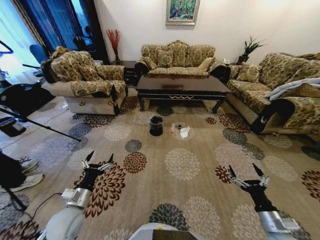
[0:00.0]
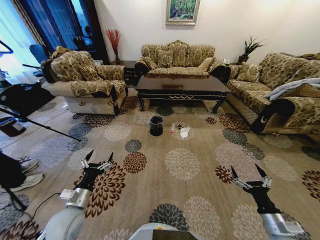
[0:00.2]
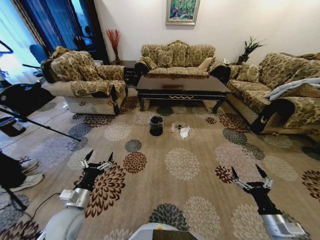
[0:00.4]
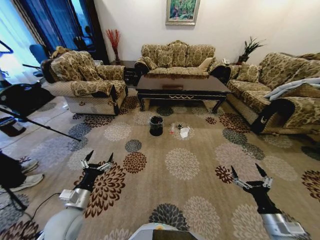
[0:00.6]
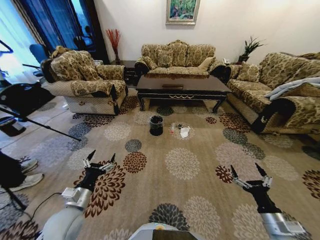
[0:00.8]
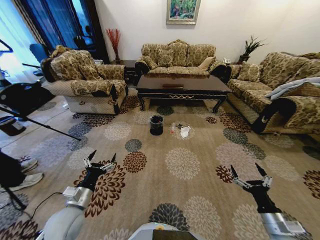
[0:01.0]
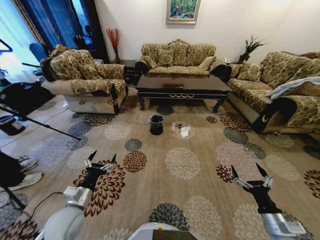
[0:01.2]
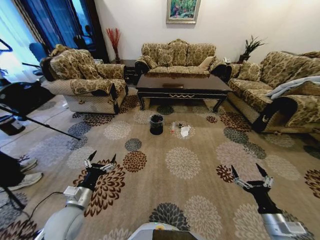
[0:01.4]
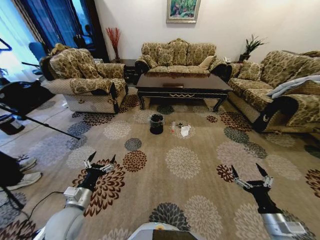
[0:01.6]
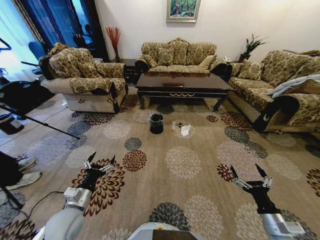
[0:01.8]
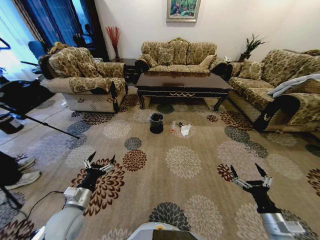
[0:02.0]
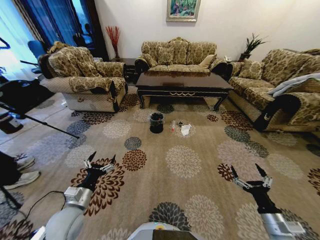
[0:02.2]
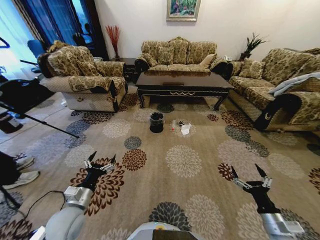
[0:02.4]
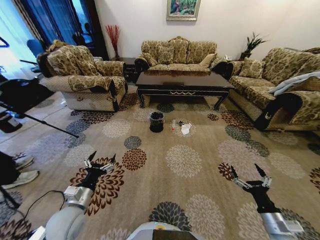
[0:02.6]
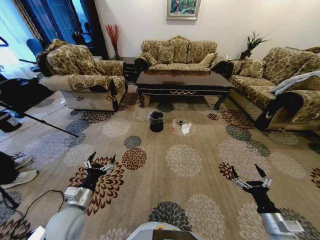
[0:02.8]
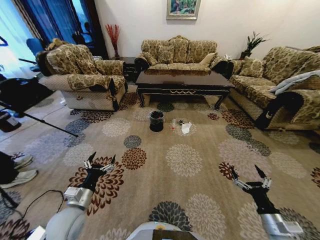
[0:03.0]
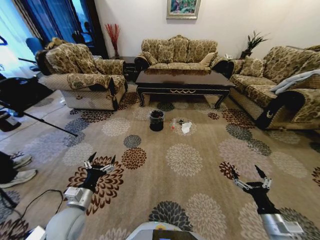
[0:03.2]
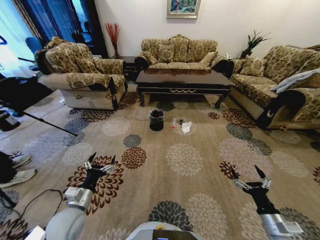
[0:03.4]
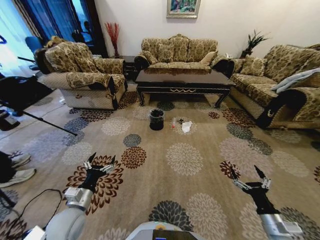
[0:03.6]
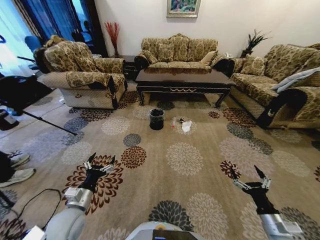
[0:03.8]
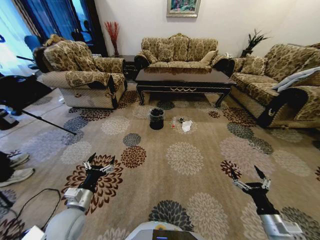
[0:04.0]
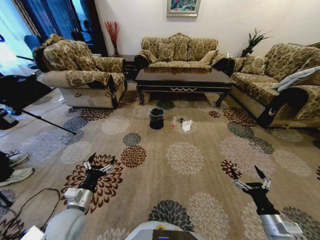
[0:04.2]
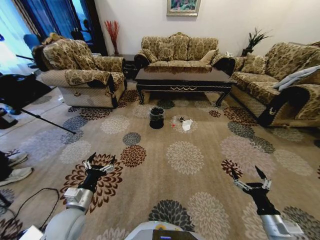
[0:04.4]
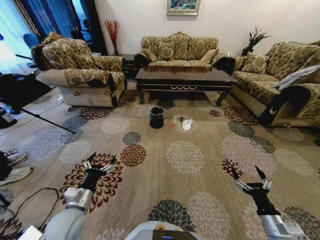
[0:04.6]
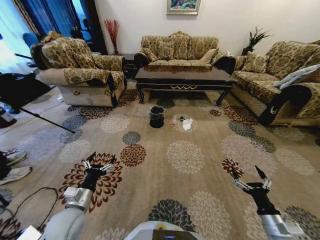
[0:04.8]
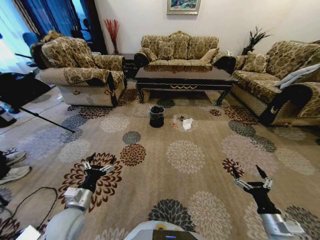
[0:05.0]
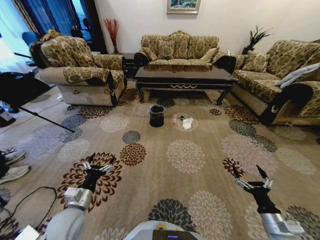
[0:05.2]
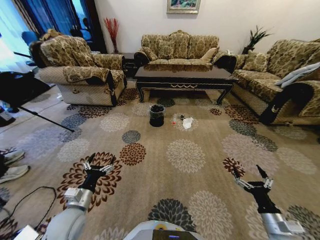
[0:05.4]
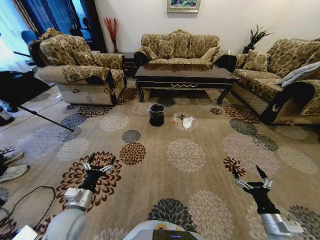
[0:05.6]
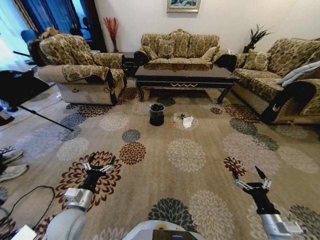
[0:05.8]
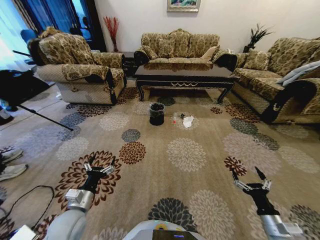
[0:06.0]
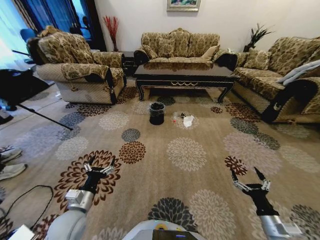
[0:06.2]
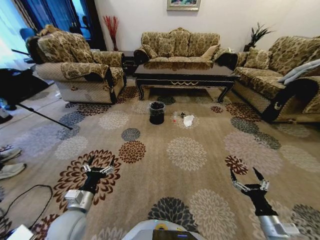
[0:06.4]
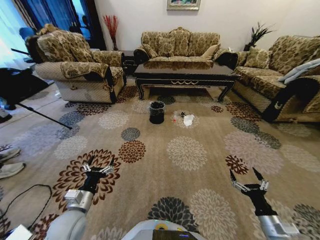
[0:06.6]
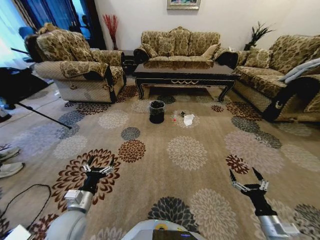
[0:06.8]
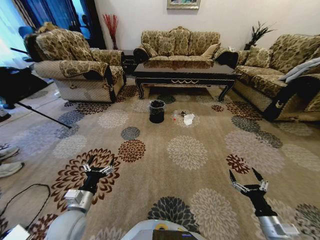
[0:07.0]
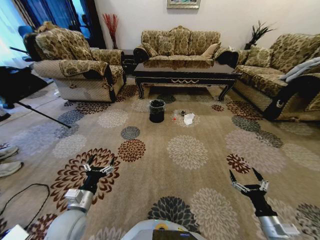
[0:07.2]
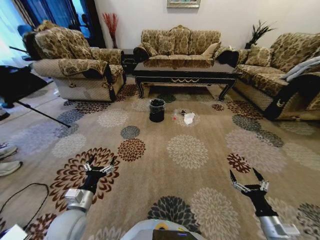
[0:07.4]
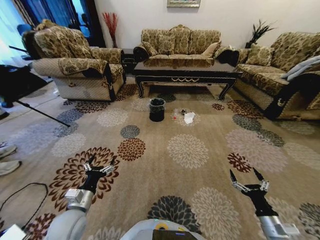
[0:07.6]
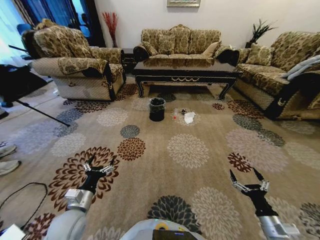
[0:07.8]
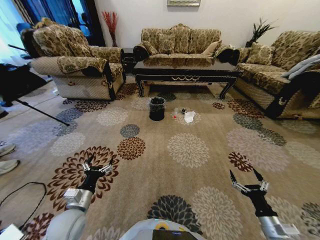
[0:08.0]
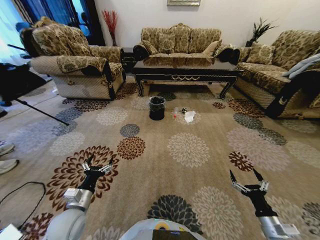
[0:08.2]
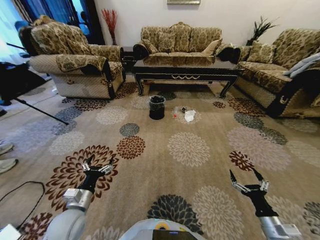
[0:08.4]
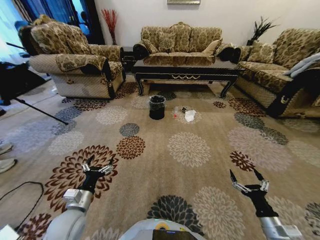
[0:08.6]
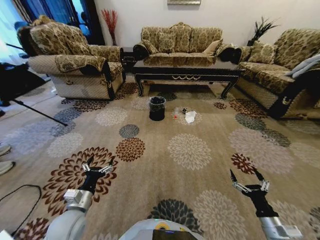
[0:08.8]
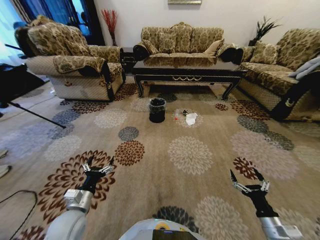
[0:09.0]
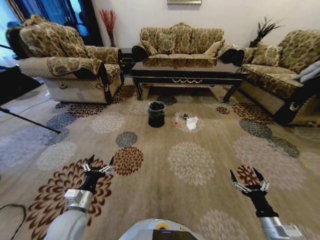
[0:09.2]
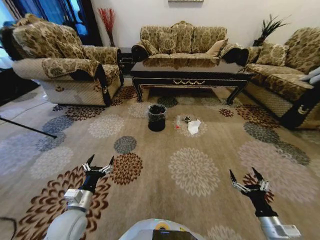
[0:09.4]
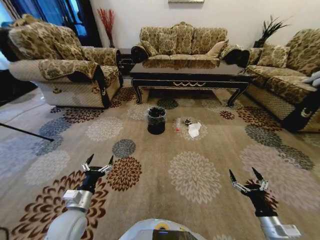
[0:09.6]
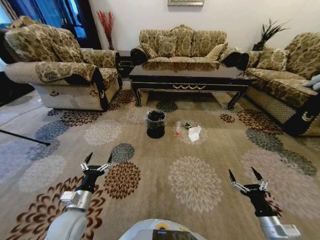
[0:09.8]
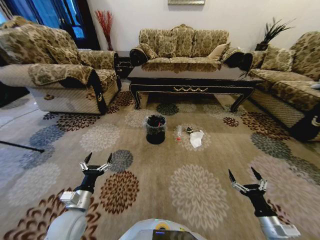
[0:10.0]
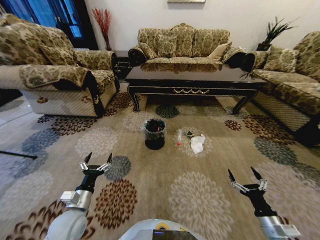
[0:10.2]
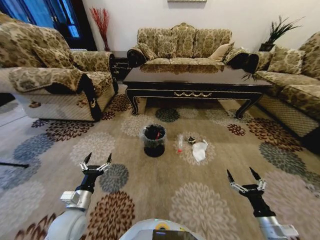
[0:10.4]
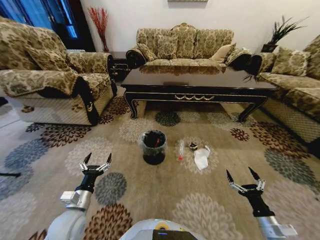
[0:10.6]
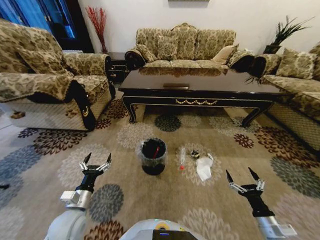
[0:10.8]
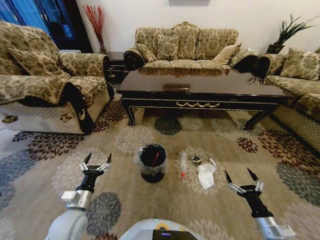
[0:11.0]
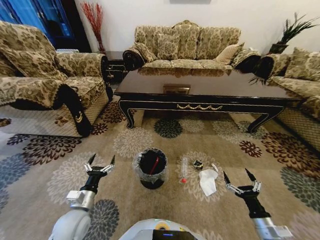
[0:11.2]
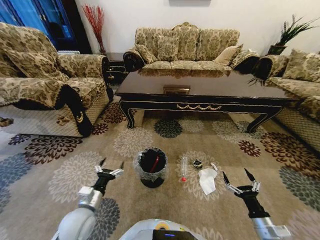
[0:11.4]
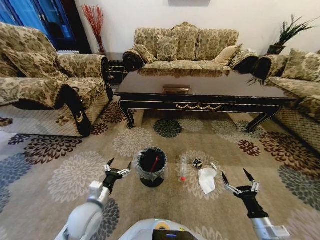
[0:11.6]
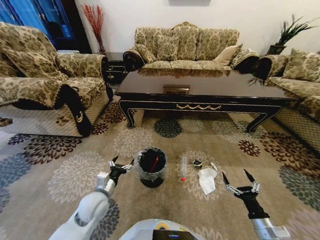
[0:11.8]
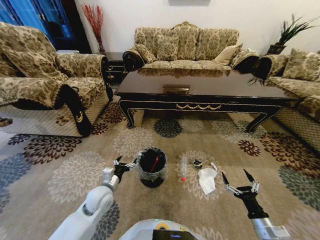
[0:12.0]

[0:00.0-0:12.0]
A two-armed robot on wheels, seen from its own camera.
Task of the whole recording: Move to the front of the table and pick up the trash from the floor, then place it into the trash bin.
0:10.4 to 0:12.0: The left gripper goes approximately 10 cm forward and to the right.

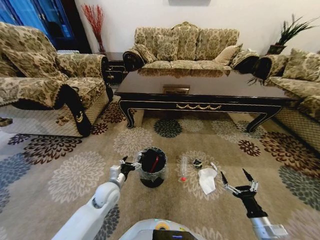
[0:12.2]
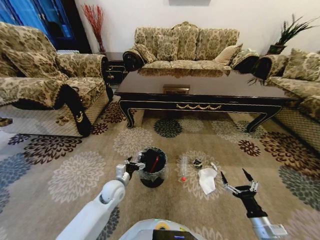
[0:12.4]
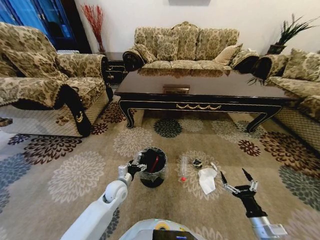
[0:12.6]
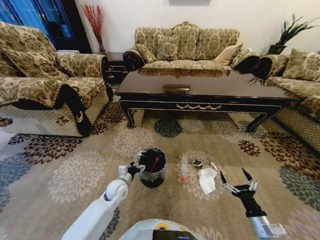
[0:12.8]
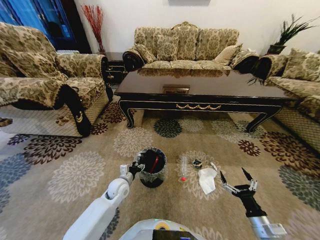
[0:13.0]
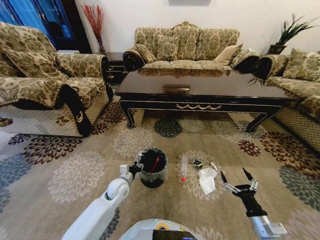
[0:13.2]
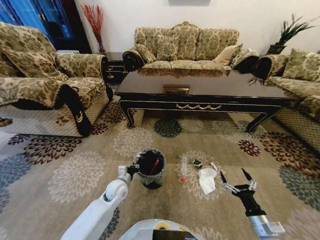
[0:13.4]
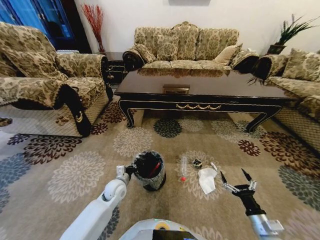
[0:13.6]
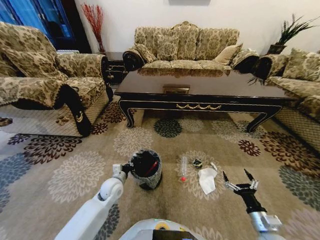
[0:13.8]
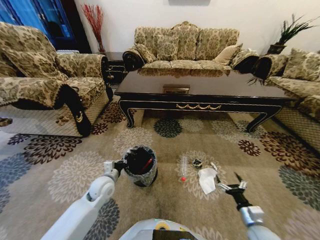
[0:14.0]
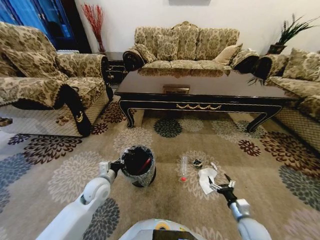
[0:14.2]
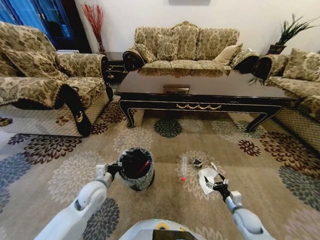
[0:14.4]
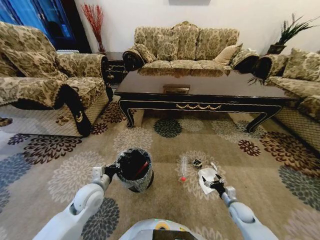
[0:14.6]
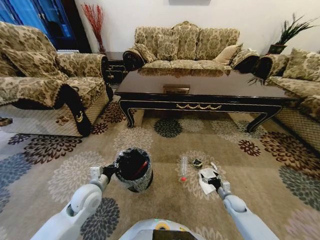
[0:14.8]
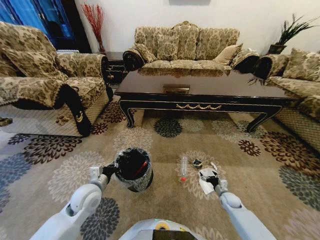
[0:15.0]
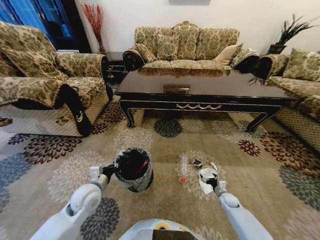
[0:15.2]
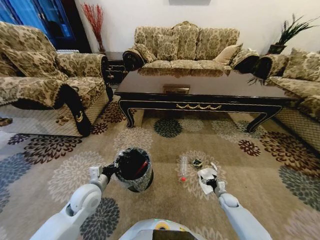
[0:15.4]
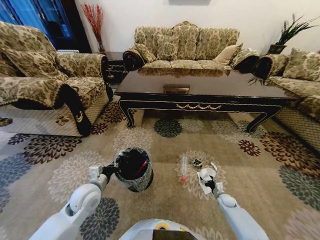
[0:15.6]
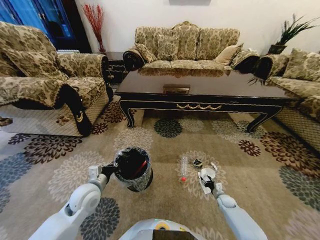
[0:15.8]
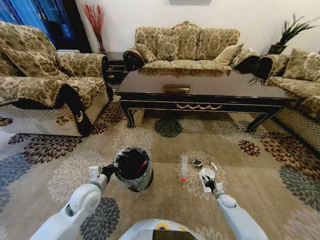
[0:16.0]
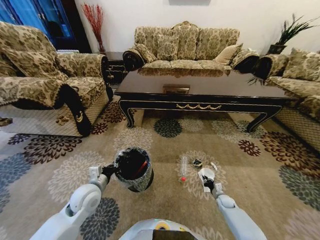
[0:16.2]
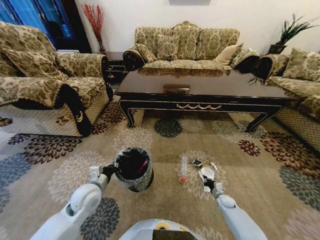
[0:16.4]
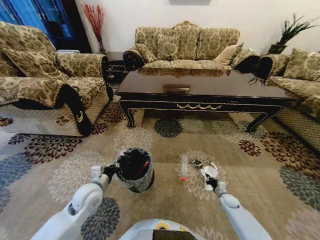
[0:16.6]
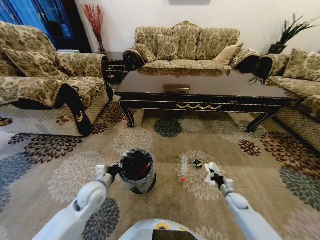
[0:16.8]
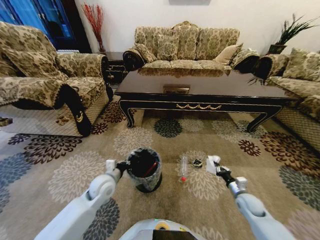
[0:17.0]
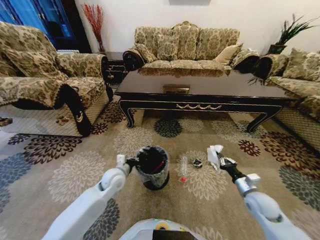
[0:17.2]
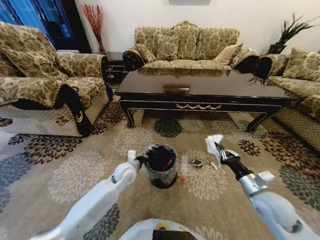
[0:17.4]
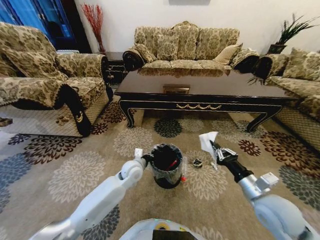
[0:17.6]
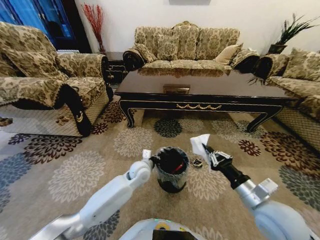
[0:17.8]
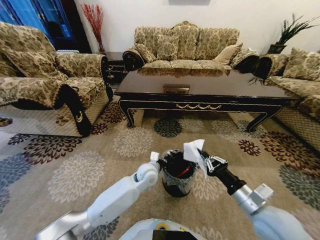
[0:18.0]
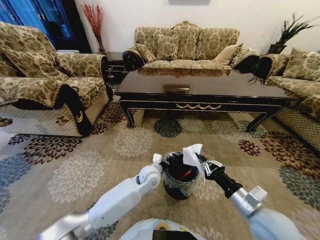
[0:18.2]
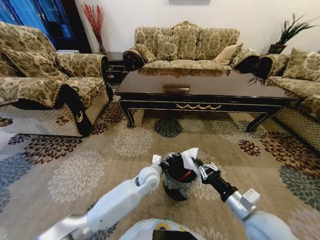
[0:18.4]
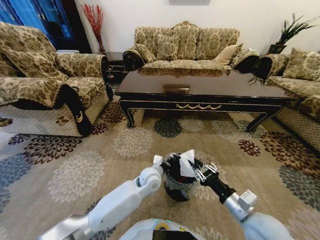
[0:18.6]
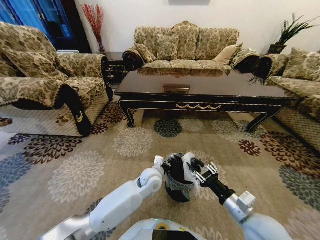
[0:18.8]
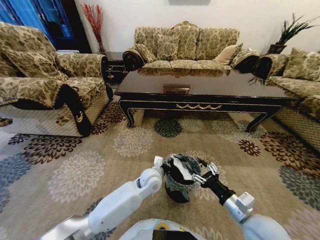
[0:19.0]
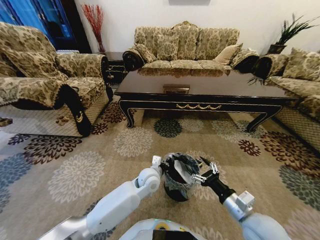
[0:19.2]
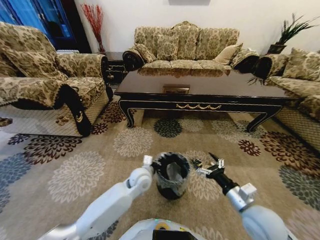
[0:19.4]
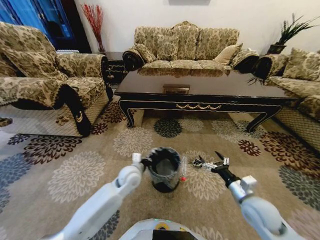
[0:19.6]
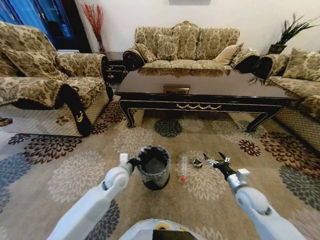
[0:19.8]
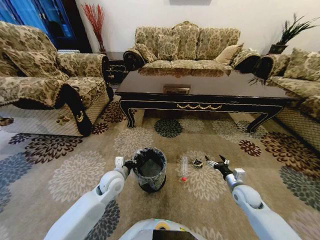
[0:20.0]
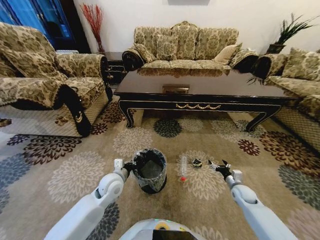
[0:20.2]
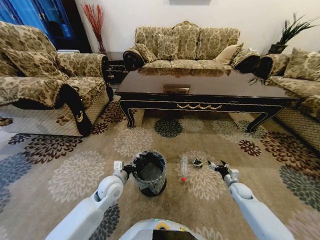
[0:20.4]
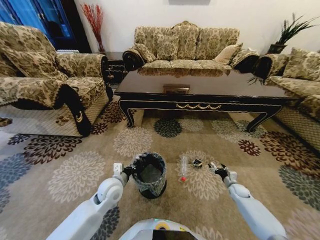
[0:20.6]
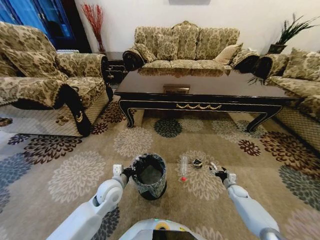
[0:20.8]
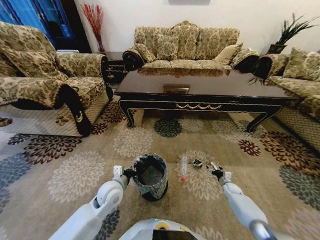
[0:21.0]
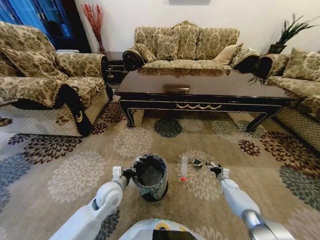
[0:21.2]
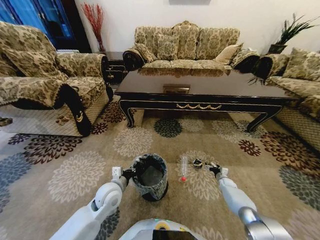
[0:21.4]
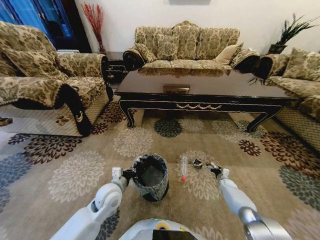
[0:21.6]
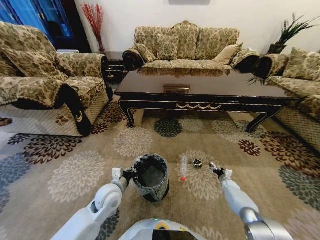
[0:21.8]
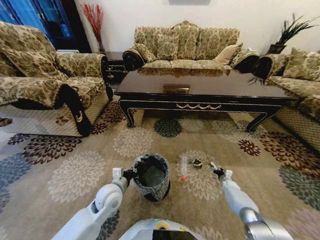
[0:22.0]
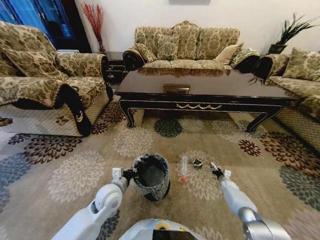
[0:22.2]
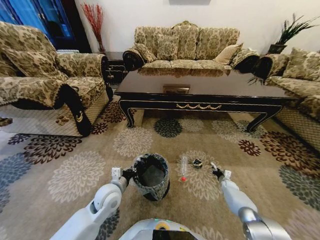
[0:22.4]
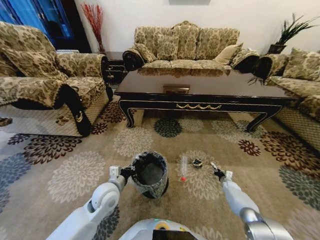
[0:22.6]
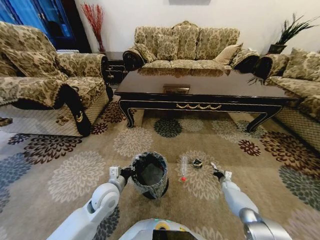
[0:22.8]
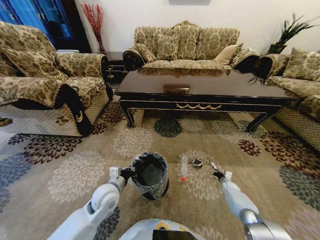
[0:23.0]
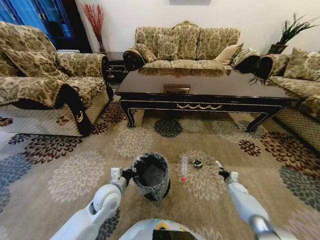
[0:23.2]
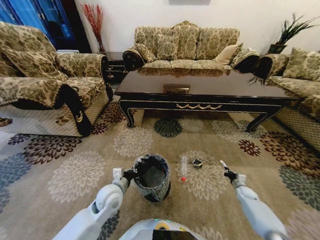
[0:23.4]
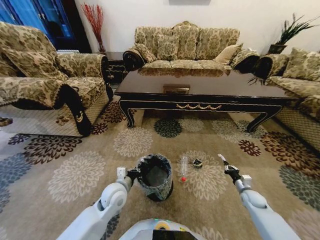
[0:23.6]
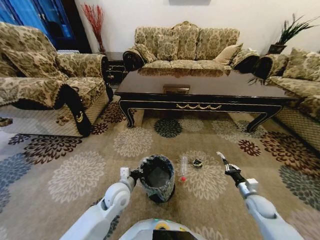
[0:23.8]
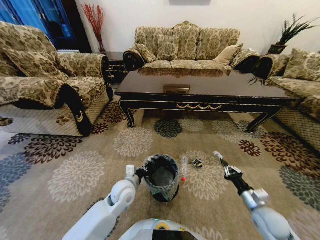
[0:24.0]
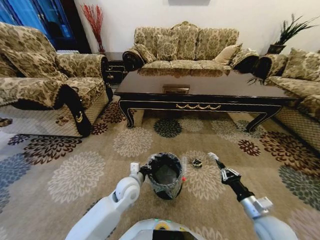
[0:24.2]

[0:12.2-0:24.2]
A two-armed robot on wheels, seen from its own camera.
Task of the whole recording: Move to the front of the table and pick up the trash from the floor, then place it into the trash bin.
0:12.2 to 0:13.8: The left gripper closes up.
0:13.8 to 0:15.2: The left gripper heads upward and backward, covering some 10 cm. The right gripper is displaced forward and downward by some 25 cm.
0:15.2 to 0:16.6: The right gripper closes.
0:16.6 to 0:18.2: The left gripper is displaced to the right and forward by about 25 cm. Meanwhile the right gripper goes some 40 cm upward and backward.
0:18.2 to 0:19.8: The left gripper goes some 15 cm to the left, while the right gripper goes about 15 cm downward, forward and to the right, and opens up.
0:19.8 to 0:21.2: The right gripper moves downward and forward, some 25 cm. Meanwhile the left gripper goes roughly 5 cm backward.
0:21.2 to 0:22.6: The right gripper closes.
0:22.6 to 0:24.2: The right gripper shifts roughly 35 cm upward and backward. The left gripper moves to the right, roughly 5 cm.
